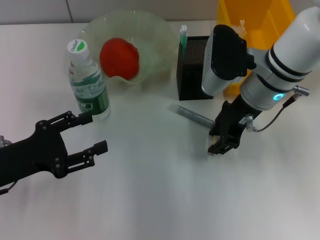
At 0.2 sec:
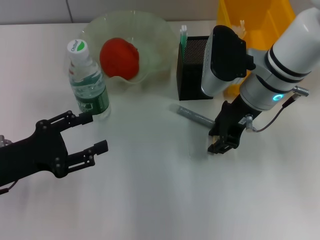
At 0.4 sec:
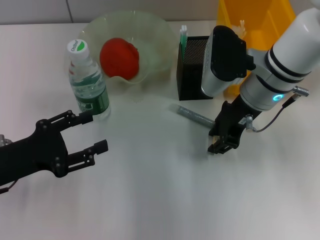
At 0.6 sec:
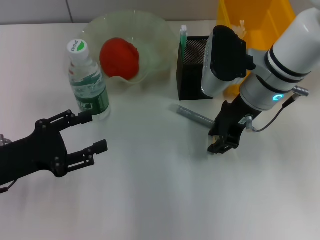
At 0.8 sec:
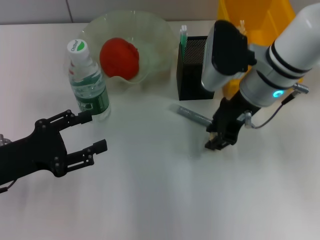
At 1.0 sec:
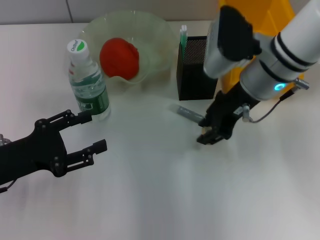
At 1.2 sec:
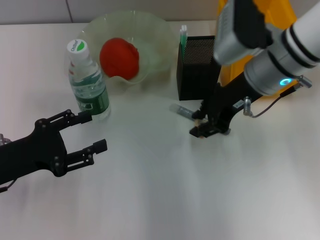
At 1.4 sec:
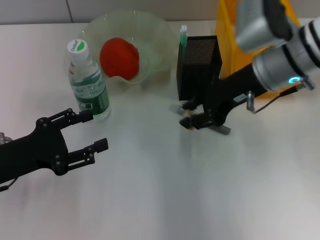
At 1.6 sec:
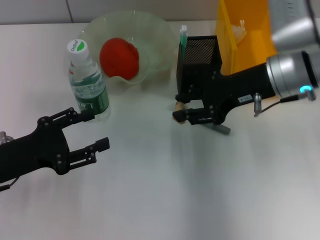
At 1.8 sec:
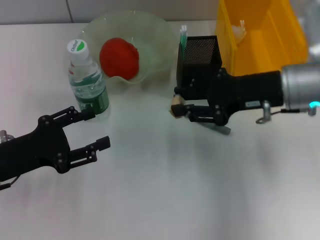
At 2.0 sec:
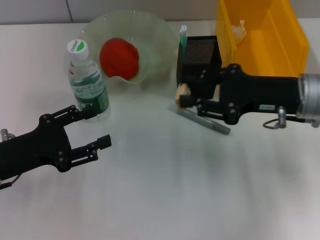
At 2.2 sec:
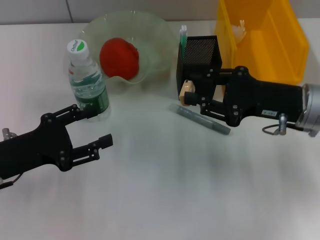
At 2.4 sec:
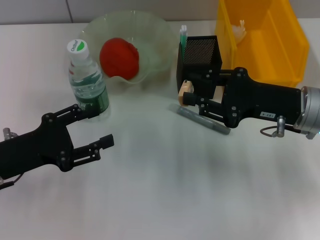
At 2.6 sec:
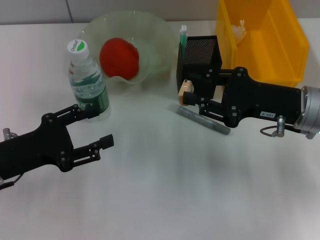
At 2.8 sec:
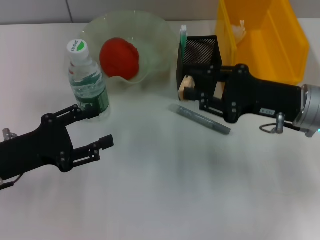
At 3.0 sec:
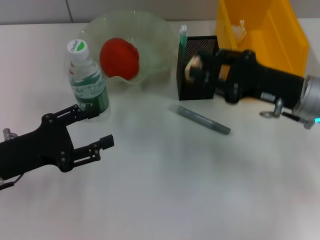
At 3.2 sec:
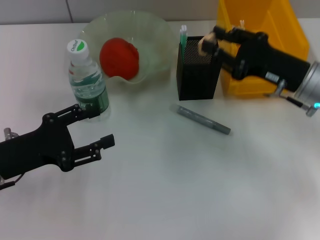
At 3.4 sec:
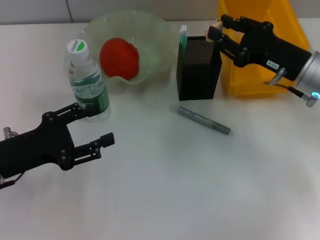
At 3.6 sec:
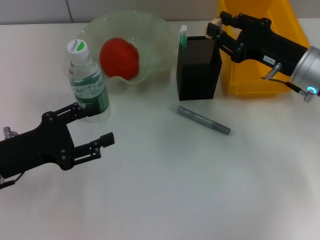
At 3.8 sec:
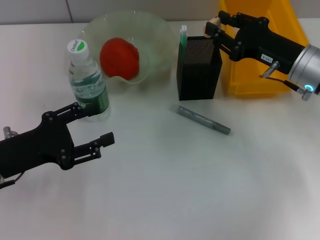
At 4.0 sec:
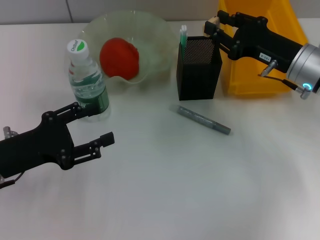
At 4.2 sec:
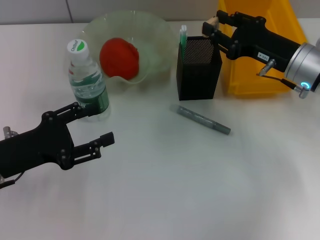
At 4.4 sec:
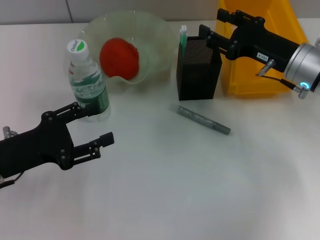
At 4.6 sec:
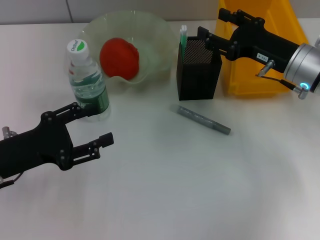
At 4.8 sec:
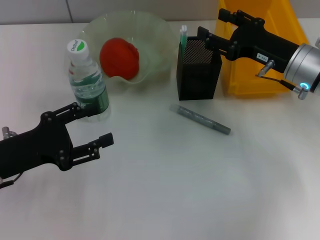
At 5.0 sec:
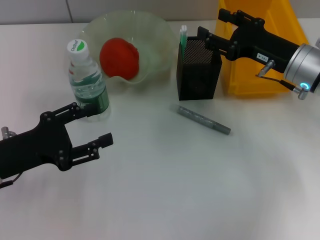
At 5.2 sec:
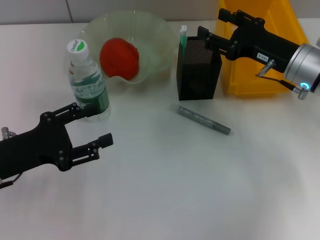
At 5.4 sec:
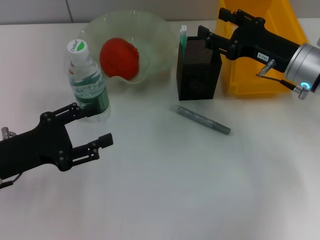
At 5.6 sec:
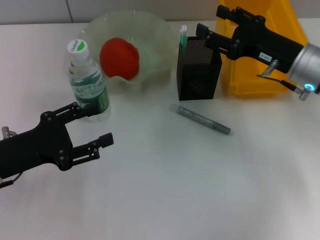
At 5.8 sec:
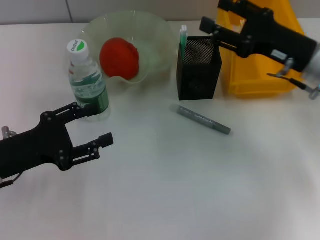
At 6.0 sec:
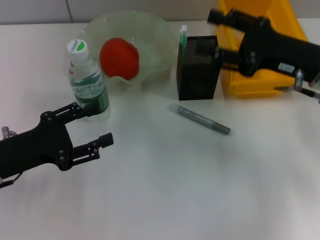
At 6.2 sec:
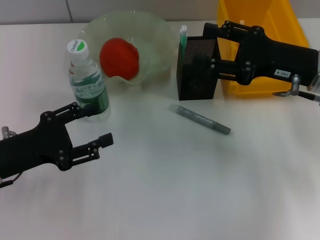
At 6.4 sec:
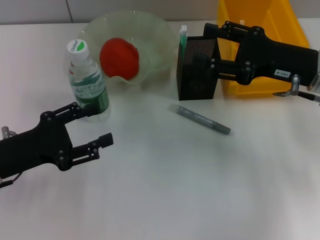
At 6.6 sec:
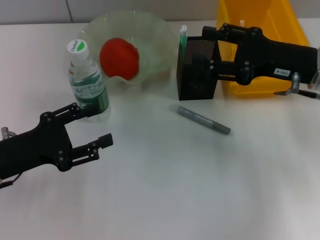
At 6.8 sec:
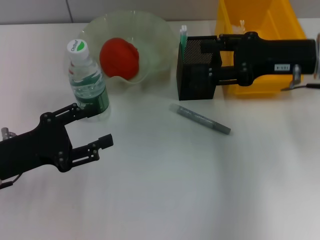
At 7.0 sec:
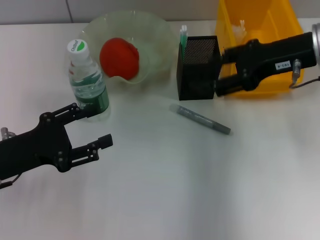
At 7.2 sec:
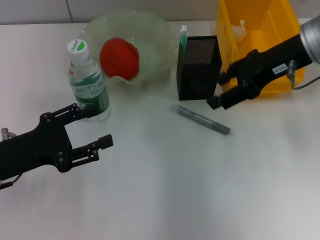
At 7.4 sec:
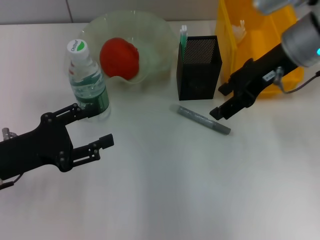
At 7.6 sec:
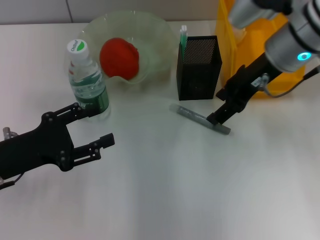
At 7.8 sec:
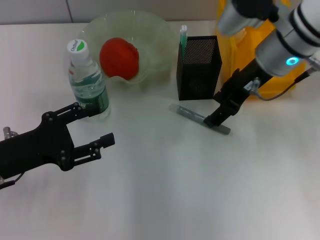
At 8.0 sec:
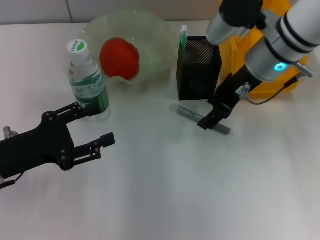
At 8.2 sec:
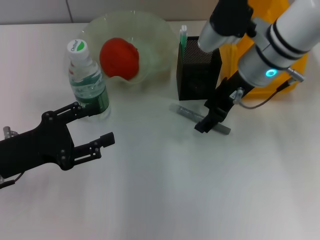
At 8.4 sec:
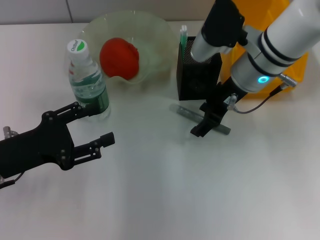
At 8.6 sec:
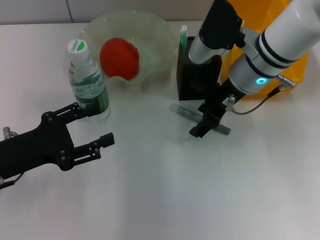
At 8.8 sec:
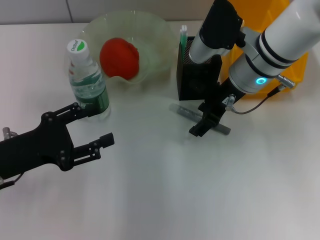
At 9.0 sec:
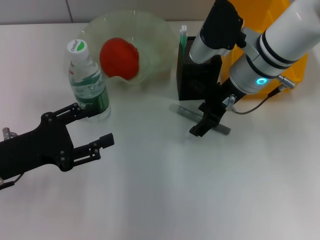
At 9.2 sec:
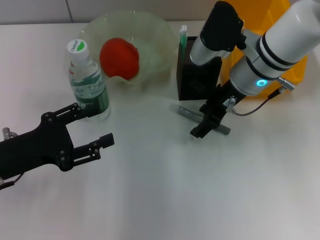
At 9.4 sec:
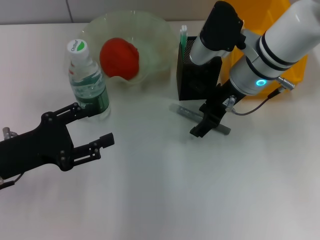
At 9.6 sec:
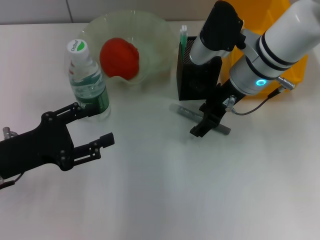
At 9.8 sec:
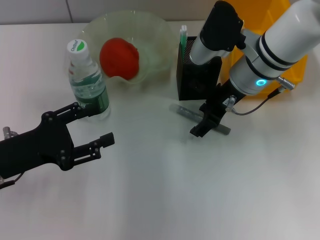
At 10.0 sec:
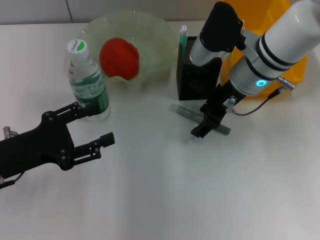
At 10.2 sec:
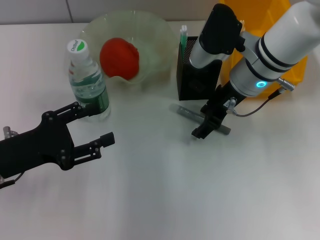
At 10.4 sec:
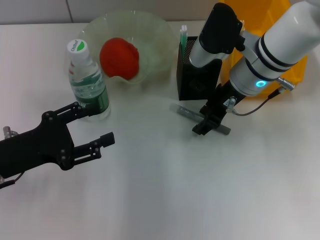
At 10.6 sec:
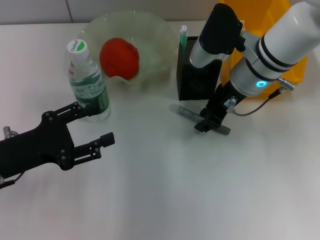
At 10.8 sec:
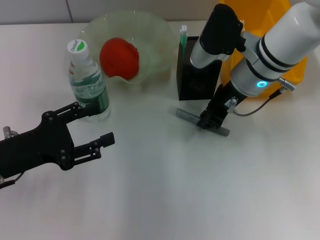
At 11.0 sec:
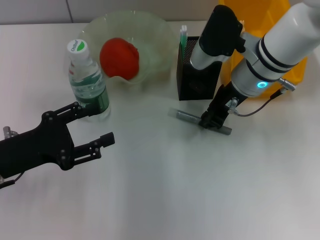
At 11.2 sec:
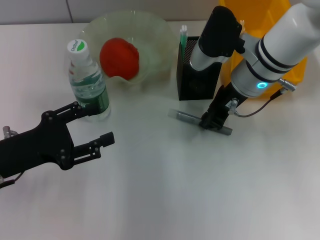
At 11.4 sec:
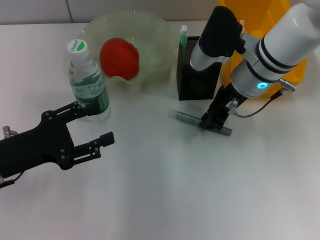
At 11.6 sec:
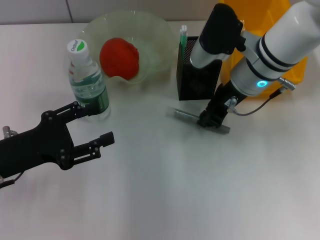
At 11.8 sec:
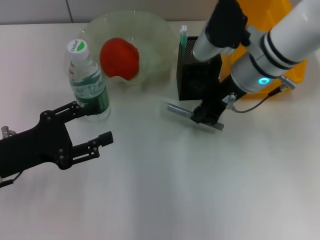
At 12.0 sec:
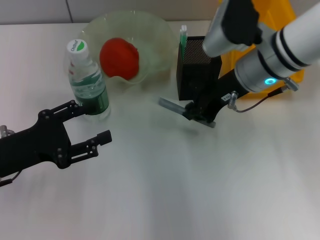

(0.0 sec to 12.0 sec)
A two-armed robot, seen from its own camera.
Step, 1.0 sec - 4.6 sec: Put the eraser into the pen holder with the right hand.
Step, 4.8 sec - 10.8 sec: Grab the gray glue with the right hand.
0.0 sec - 1.6 sec: The right gripper ends up roughly 5 cm from where it was.
1.6 sec - 3.0 sec: The right gripper heads downward, covering roughly 5 cm.
3.0 sec - 4.4 sec: The grippers stay close to where they were, moving slightly.
4.4 sec - 6.0 sec: The right gripper ends up some 5 cm from where it was.
6.0 sec - 7.6 sec: The right gripper travels to the left and forward by some 10 cm.
7.6 sec - 9.0 sec: The right gripper moves downward, approximately 5 cm.
9.0 sec - 10.4 sec: Neither gripper changes place.
10.4 sec - 12.0 sec: The right gripper closes.

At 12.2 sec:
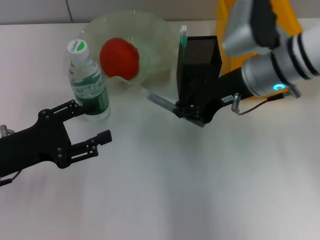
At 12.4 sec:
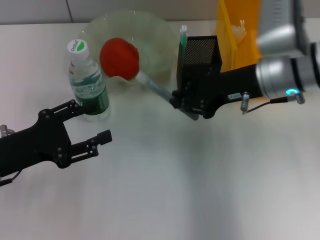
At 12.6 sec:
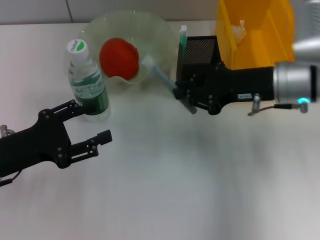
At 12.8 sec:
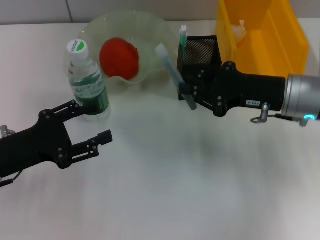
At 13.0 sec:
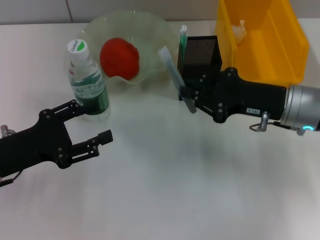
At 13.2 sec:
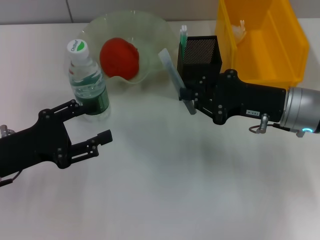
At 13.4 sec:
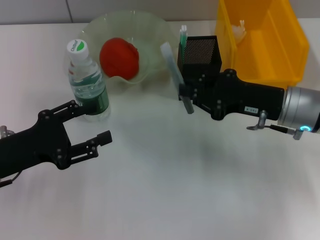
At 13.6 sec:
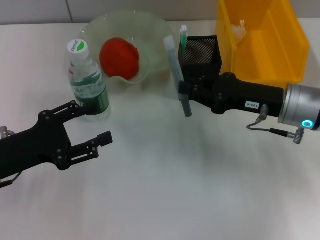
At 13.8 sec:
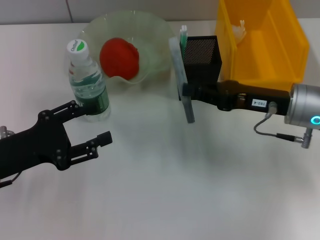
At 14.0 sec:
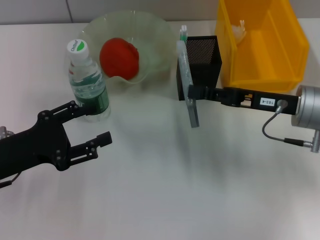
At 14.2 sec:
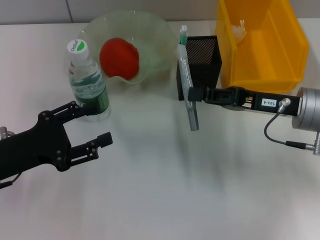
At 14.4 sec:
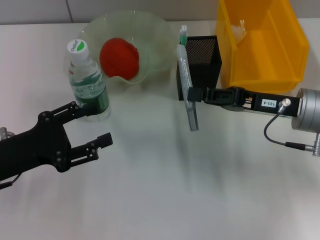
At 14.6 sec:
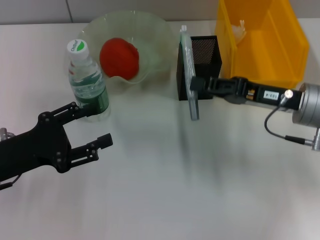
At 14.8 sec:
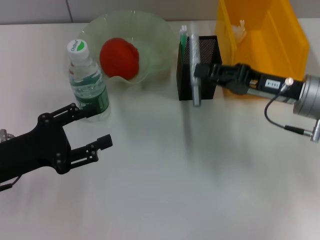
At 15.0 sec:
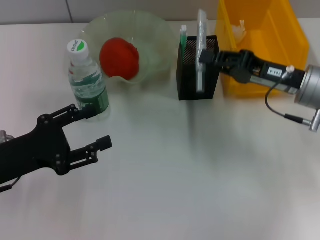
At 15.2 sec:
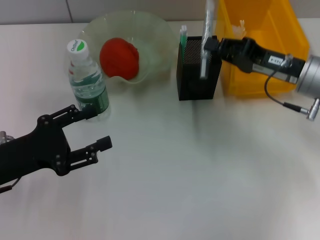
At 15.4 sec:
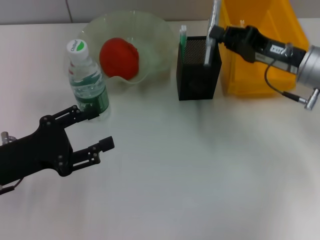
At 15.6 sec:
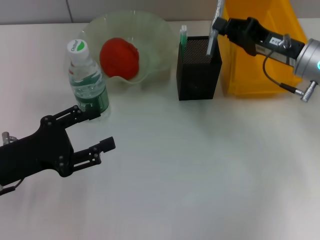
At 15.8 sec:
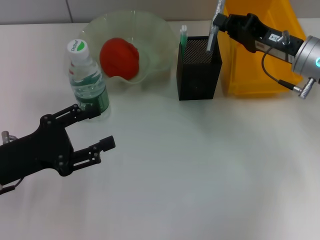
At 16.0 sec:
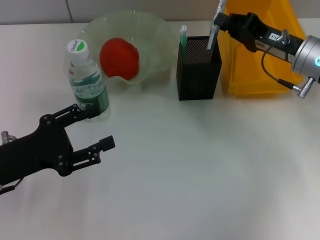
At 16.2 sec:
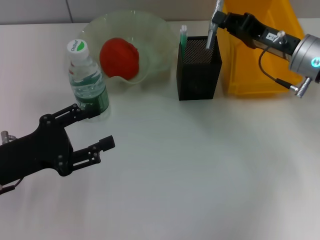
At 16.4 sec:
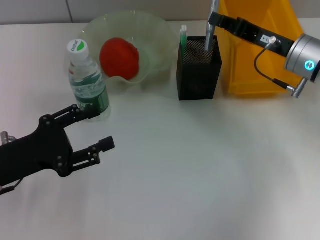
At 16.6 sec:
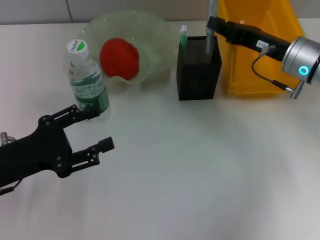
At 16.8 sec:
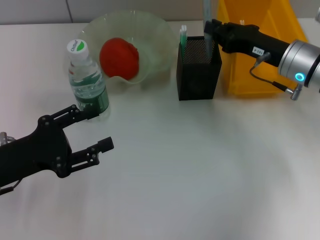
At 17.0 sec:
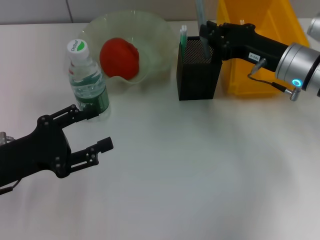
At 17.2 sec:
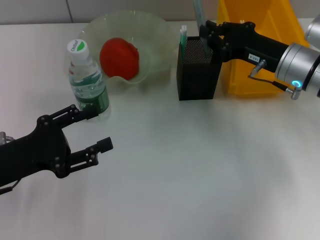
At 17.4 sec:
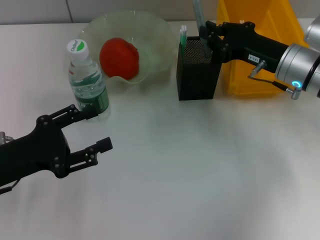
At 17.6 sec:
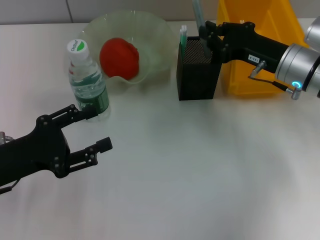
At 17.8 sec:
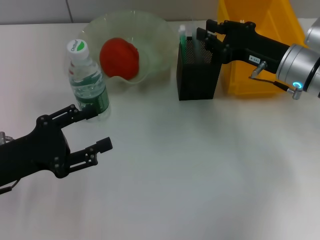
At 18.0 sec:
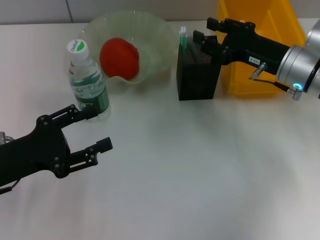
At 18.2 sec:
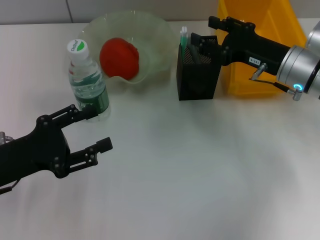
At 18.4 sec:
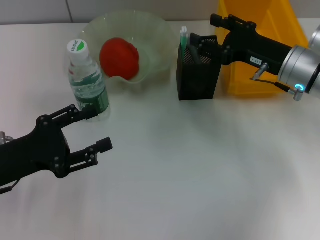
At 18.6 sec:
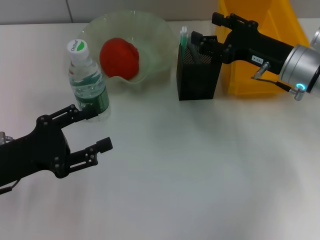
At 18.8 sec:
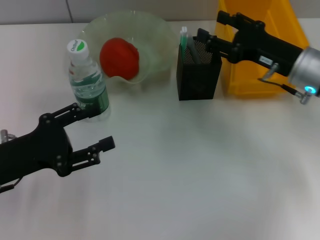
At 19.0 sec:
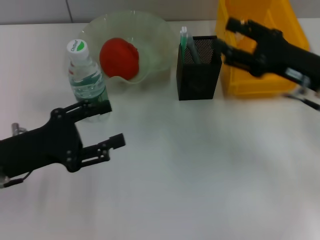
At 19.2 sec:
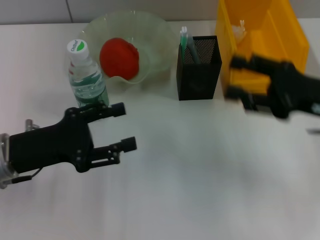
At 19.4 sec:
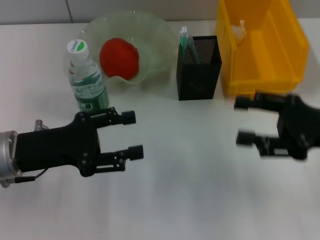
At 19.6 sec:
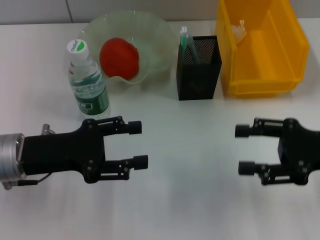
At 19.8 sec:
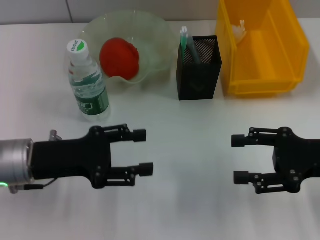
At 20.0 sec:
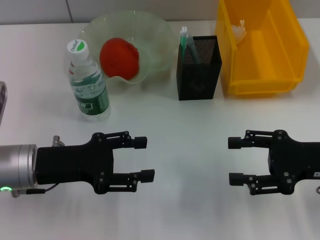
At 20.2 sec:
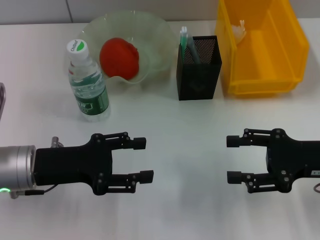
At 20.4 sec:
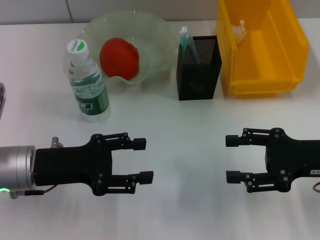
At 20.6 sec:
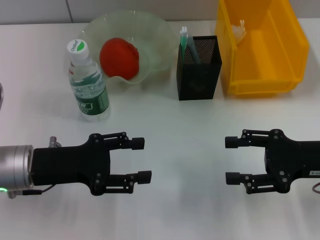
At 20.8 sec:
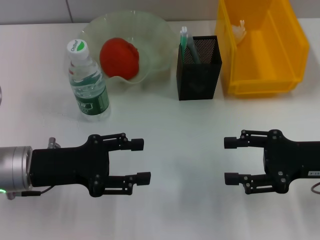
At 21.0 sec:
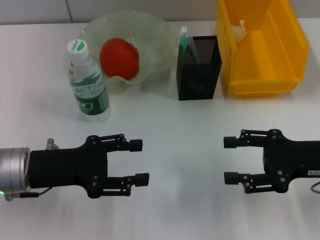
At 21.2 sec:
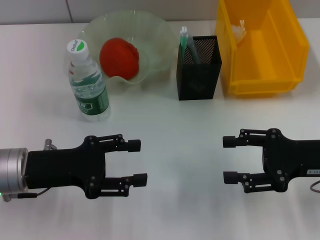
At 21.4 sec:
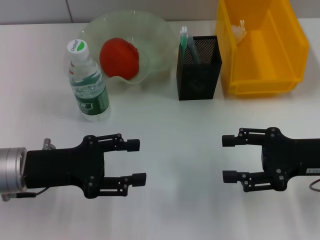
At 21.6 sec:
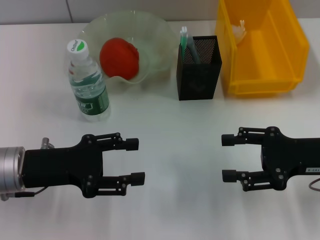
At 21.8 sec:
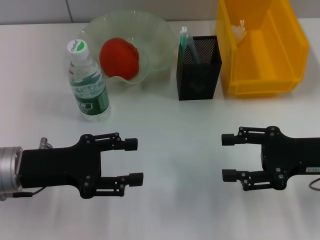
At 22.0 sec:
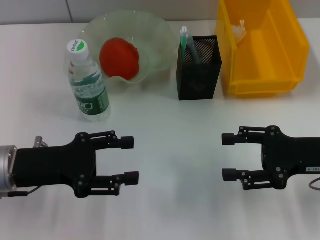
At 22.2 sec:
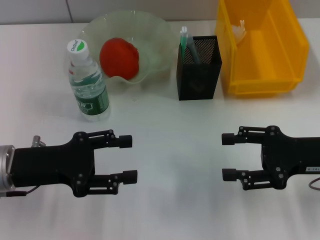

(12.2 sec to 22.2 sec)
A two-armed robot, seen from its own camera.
Step, 12.2 sec - 18.2 sec: Place the gray glue into the pen holder with the right hand.
12.2 sec - 13.6 sec: The right gripper moves downward and to the right, some 10 cm.
18.0 sec - 19.4 sec: The right gripper travels backward and to the right by roughly 15 cm, and opens its fingers.
19.4 sec - 22.2 sec: There are only small adjustments of the grippers.
